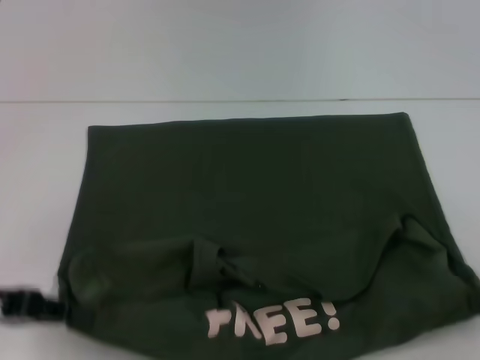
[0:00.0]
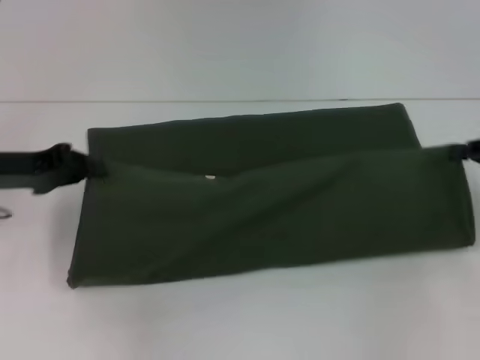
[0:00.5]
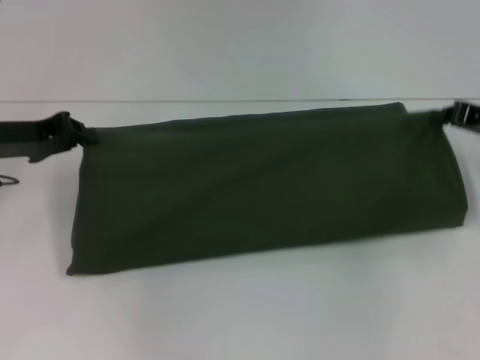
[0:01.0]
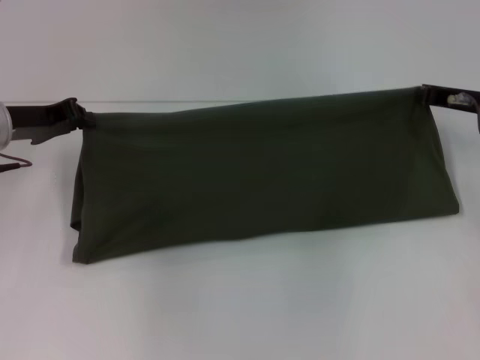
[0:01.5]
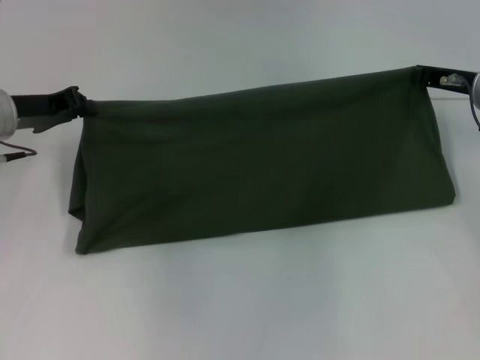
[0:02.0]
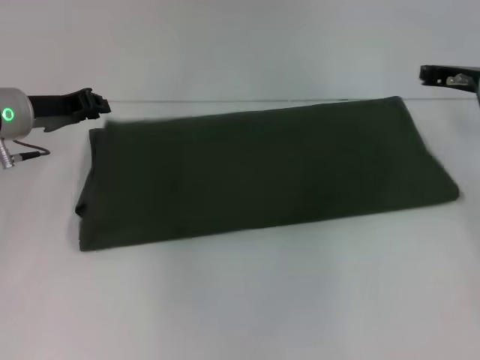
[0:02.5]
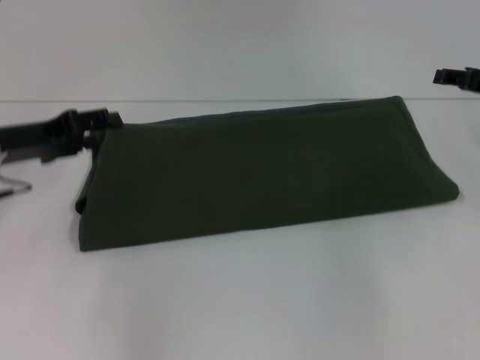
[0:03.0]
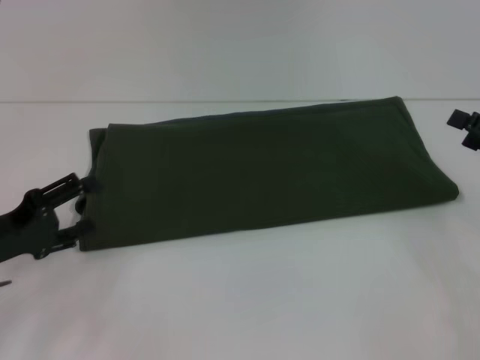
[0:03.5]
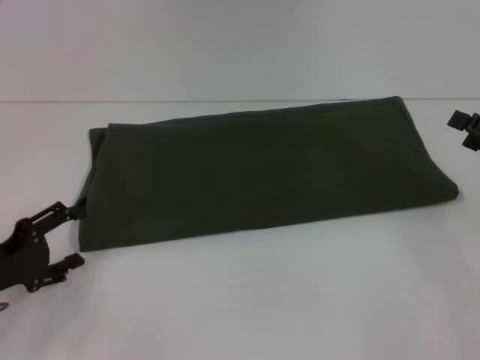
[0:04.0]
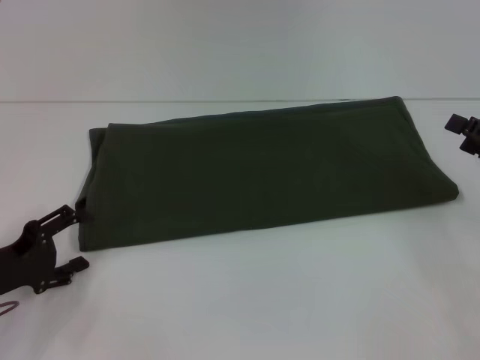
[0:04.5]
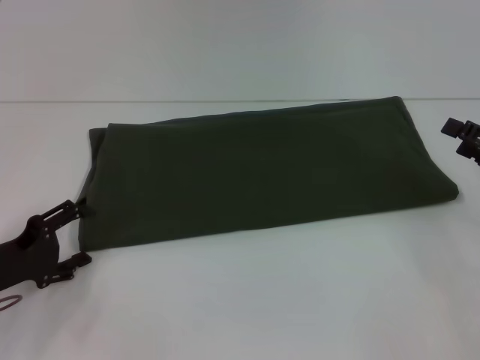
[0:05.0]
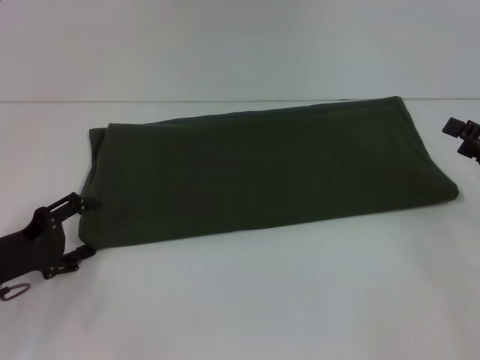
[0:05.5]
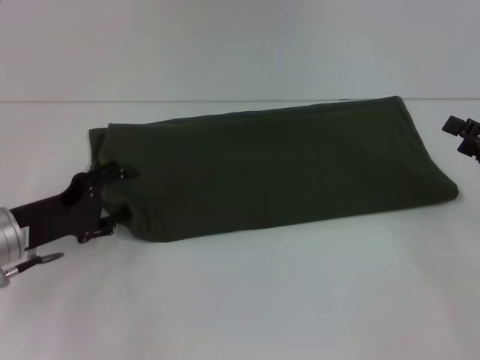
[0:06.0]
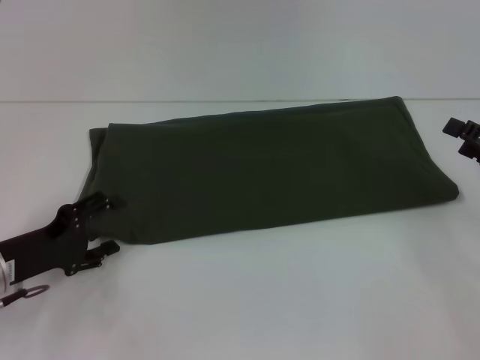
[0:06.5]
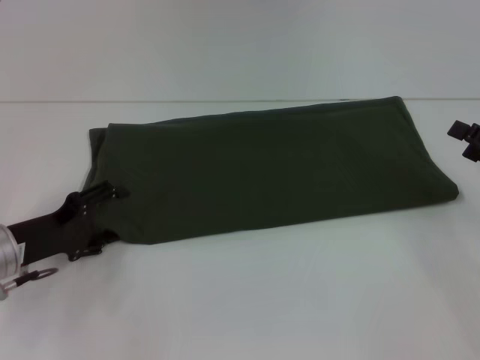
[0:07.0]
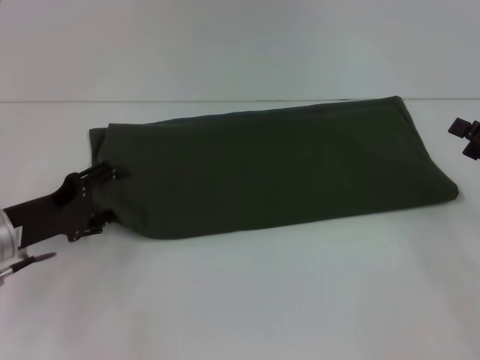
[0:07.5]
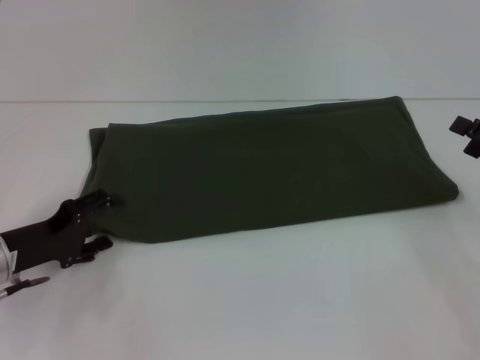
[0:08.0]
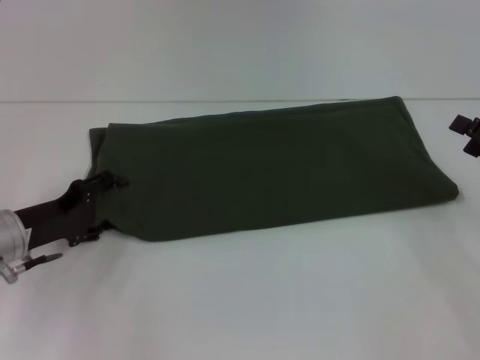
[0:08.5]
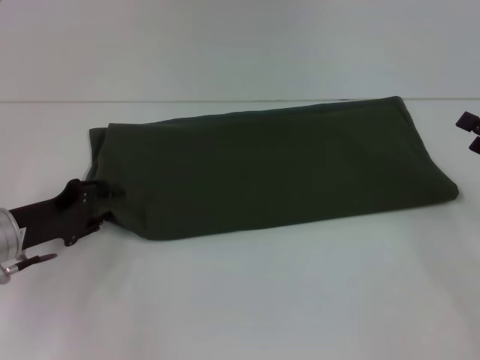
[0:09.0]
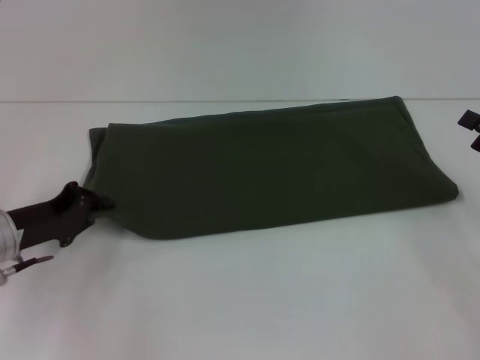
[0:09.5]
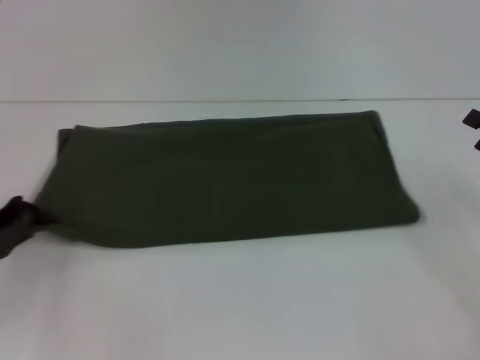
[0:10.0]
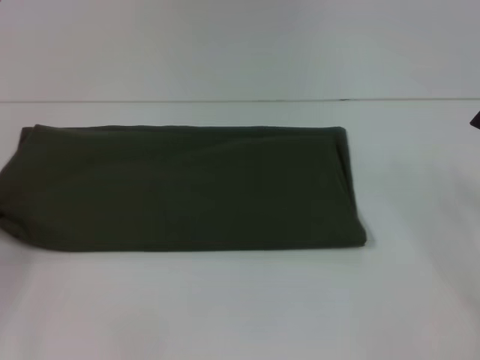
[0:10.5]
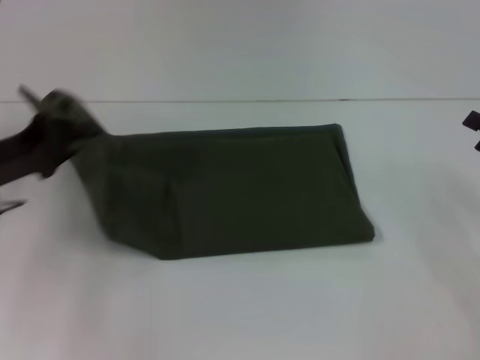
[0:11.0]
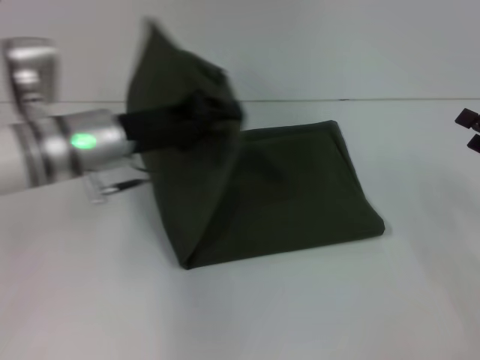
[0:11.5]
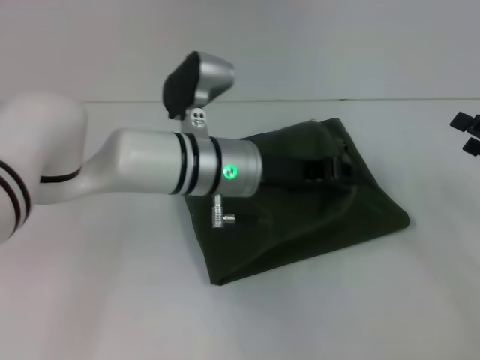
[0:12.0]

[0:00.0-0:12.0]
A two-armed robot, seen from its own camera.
Step, 0:00.0 to 0:02.5: Fold the clothes with your right hand.
0:00.0 to 0:02.0: The right gripper goes about 20 cm forward and to the left. Meanwhile the left gripper travels forward by about 15 cm.
0:02.0 to 0:04.0: The left gripper goes approximately 20 cm backward and downward, and opens its fingers. Meanwhile the right gripper goes about 15 cm backward and to the right, and opens its fingers.
0:04.0 to 0:06.0: The left gripper travels forward by roughly 5 cm.
0:06.0 to 0:08.0: The grippers stay close to where they were, moving slightly.
0:08.0 to 0:10.0: The left gripper is displaced to the left by roughly 5 cm, and closes.
0:10.0 to 0:12.0: The left gripper travels to the right by roughly 30 cm.

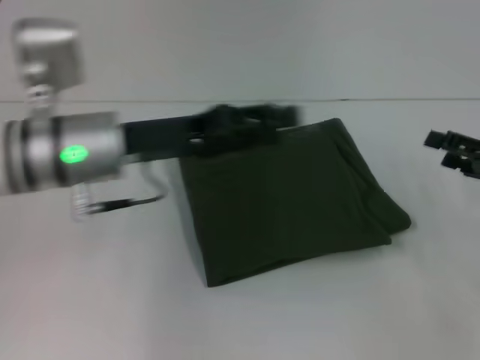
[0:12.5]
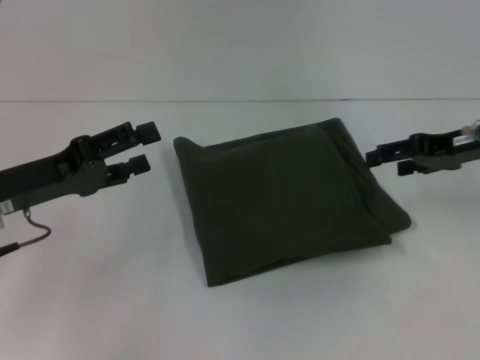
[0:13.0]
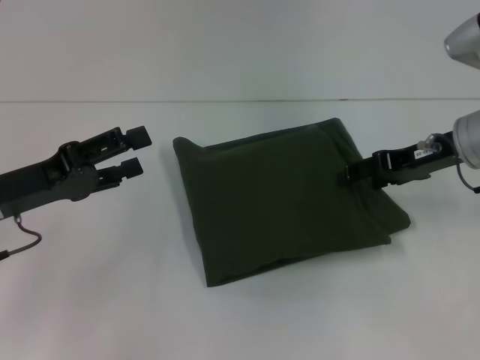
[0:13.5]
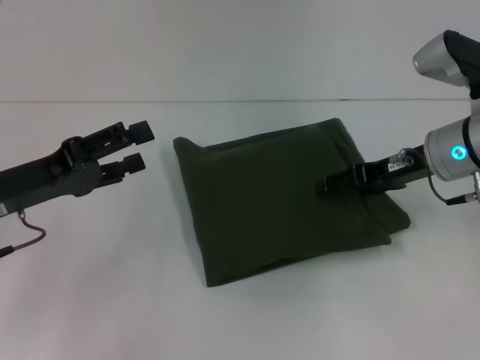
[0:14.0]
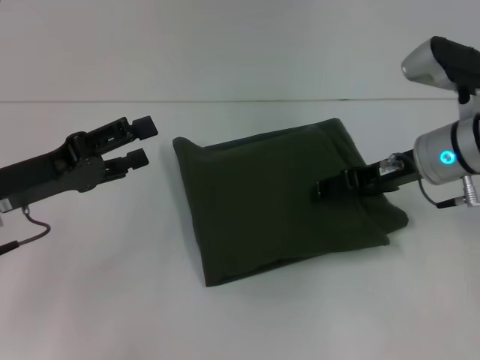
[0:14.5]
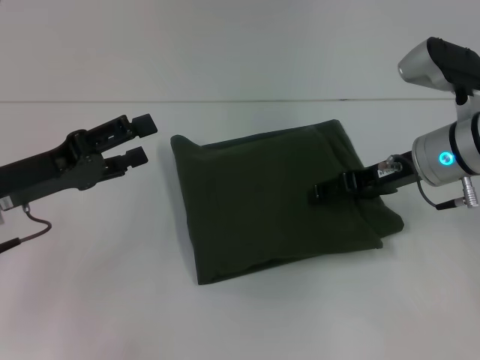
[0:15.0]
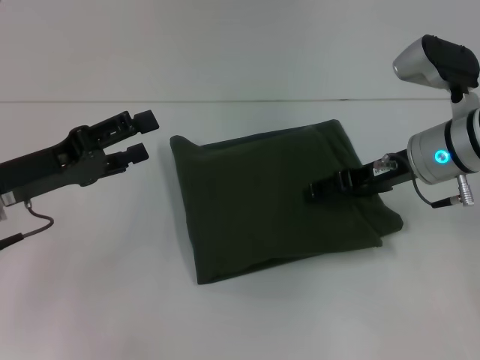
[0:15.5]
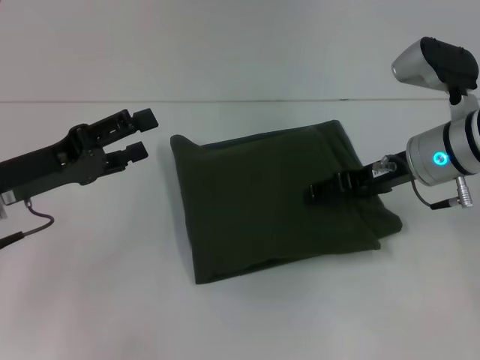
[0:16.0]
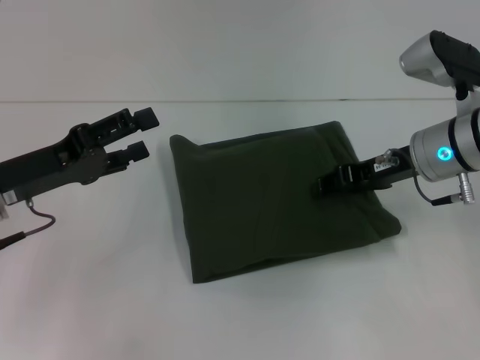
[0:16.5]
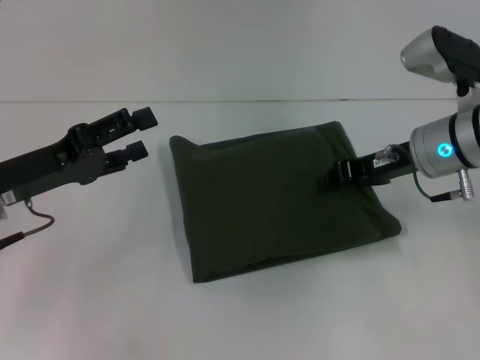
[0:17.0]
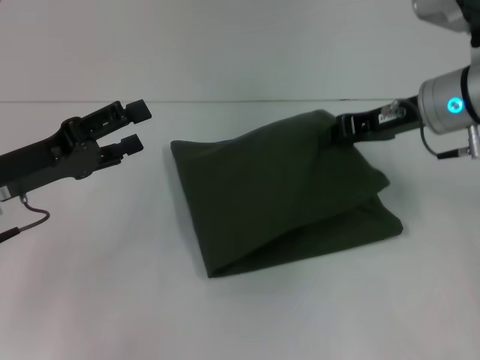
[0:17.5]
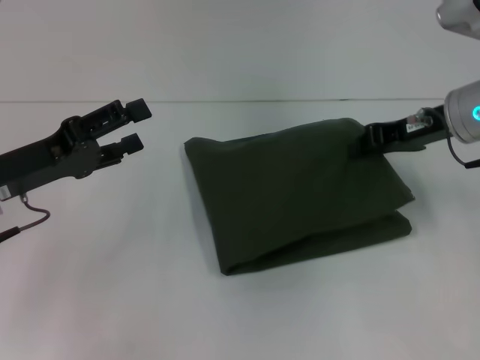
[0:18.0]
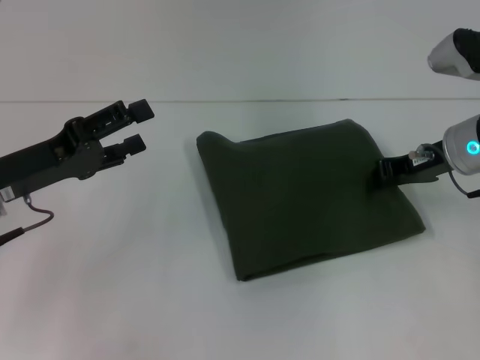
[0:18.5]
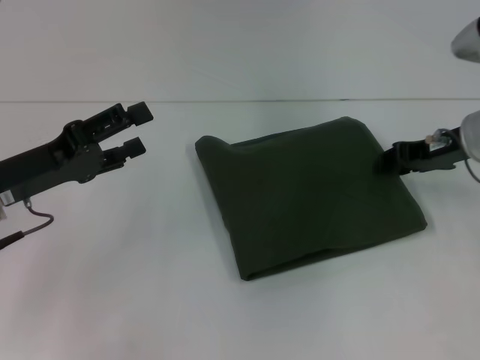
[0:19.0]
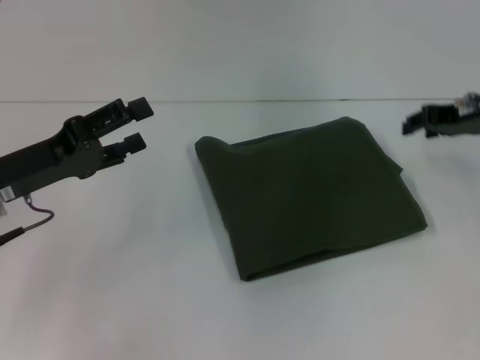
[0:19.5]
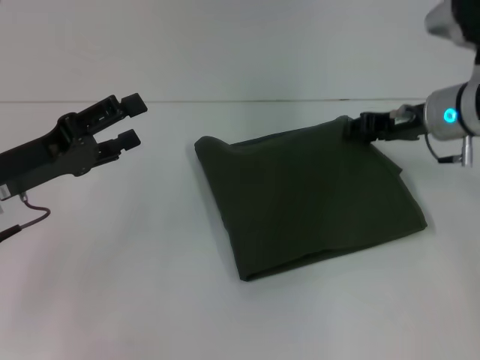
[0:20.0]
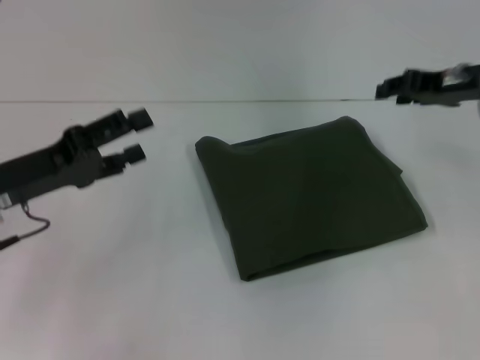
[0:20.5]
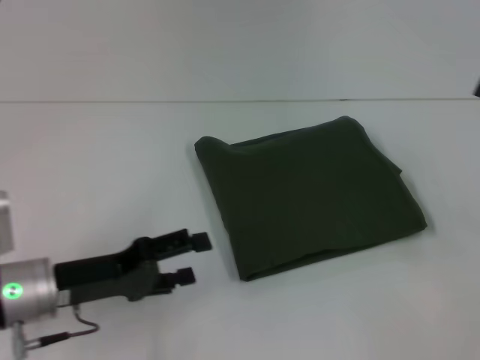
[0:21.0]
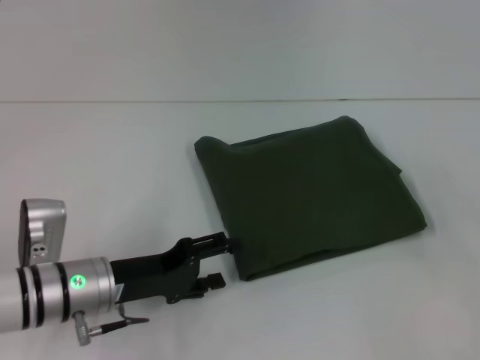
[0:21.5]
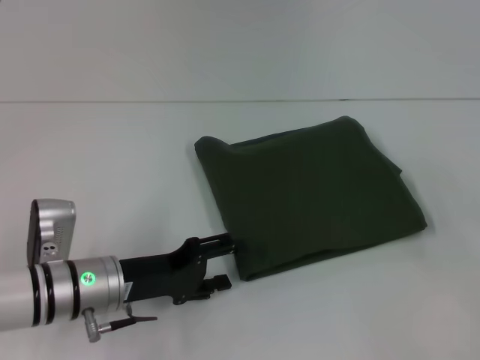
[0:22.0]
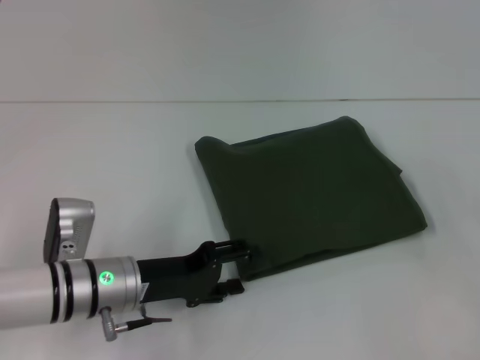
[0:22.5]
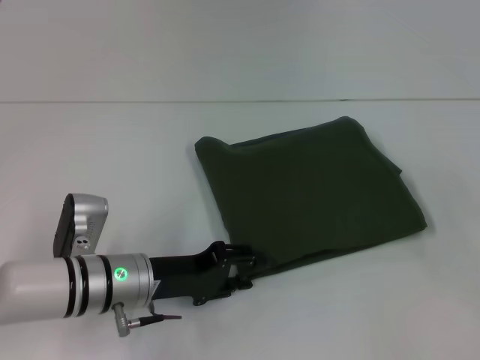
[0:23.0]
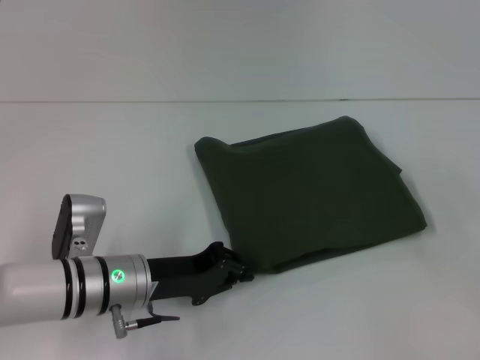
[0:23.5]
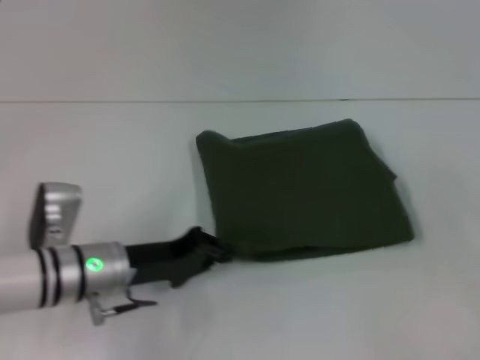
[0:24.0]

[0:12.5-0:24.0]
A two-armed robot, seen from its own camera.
0:12.5 to 0:14.5: The right gripper shifts about 15 cm to the left and forward, while the left gripper moves to the left, approximately 10 cm, and opens up.
0:14.5 to 0:16.5: The two grippers keep their place.
0:16.5 to 0:18.5: The right gripper closes up.
0:18.5 to 0:20.0: The right gripper opens its fingers.
0:20.0 to 0:22.0: The left gripper shifts about 15 cm downward and to the right; the right gripper goes approximately 20 cm to the right and backward, and opens.
0:22.0 to 0:24.0: The left gripper closes its fingers.

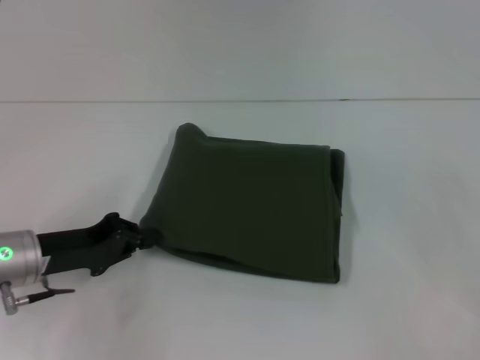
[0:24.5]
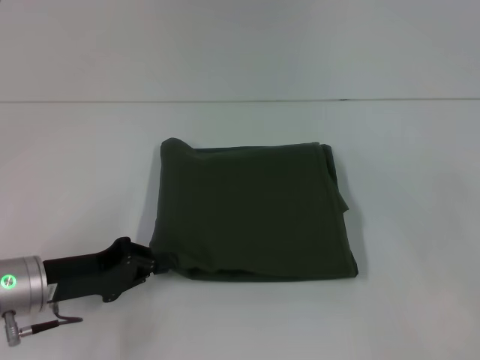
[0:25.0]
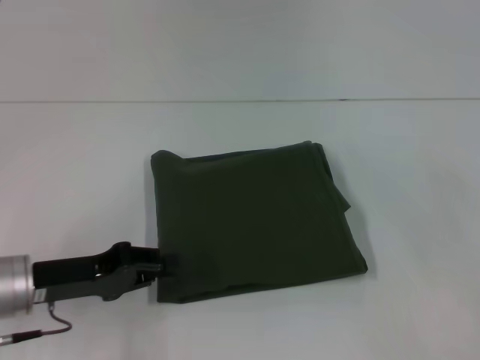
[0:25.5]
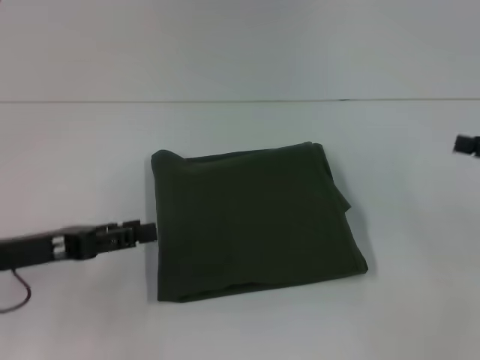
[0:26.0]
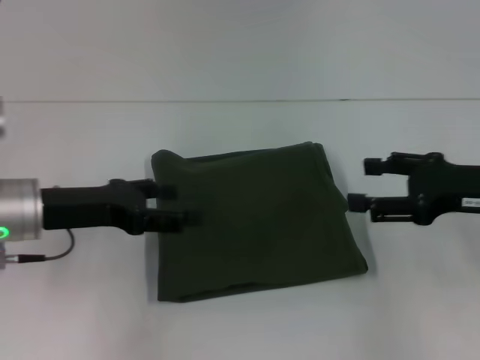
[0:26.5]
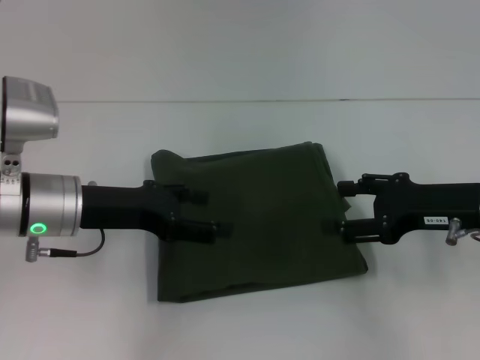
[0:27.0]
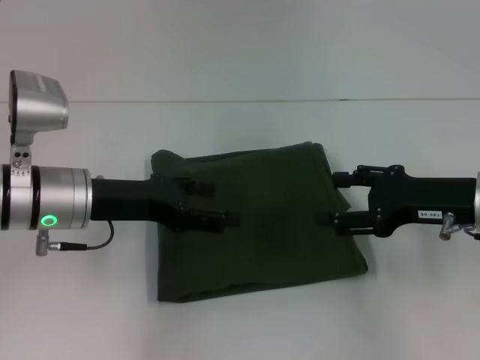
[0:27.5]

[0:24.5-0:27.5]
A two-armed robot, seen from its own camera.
0:24.5 to 0:26.0: The left gripper shifts by approximately 5 cm, and opens its fingers.
0:26.0 to 0:27.5: The left gripper goes roughly 10 cm to the right and forward, while the right gripper moves to the left, about 15 cm.
